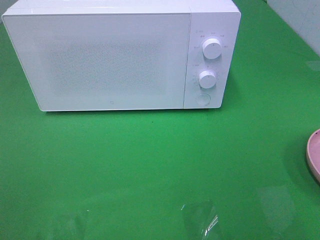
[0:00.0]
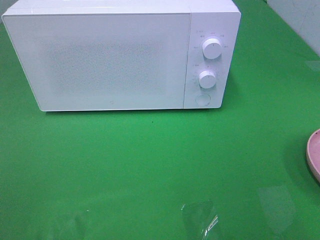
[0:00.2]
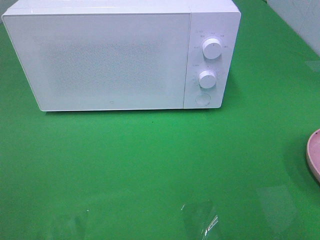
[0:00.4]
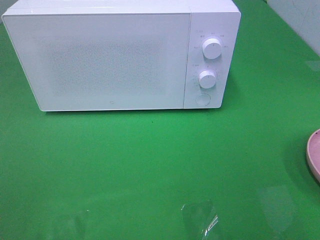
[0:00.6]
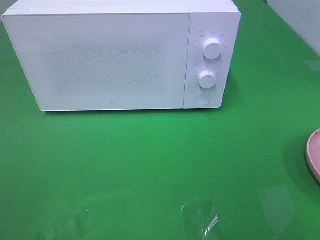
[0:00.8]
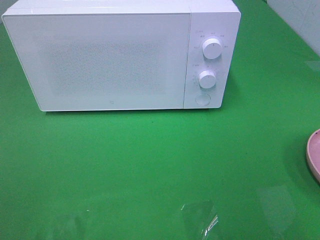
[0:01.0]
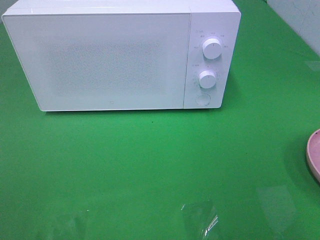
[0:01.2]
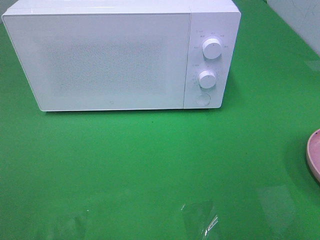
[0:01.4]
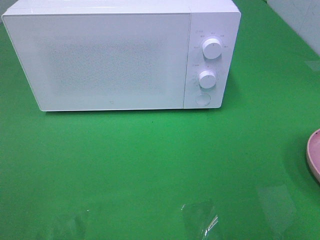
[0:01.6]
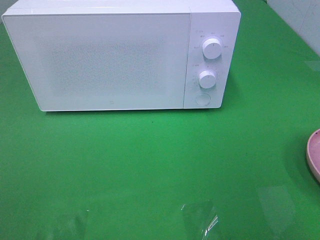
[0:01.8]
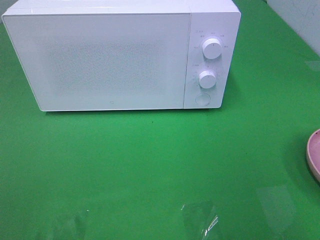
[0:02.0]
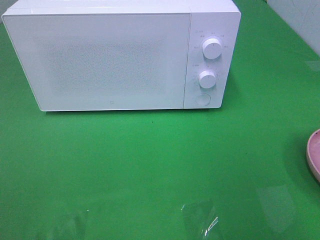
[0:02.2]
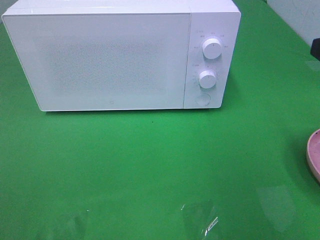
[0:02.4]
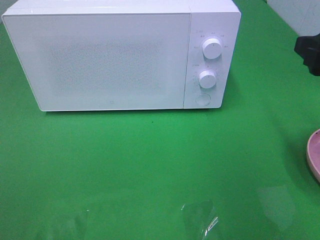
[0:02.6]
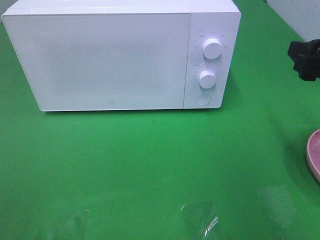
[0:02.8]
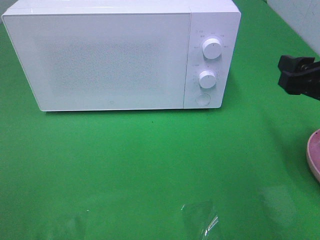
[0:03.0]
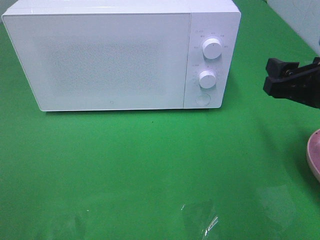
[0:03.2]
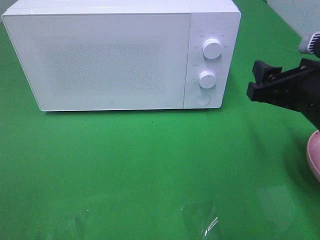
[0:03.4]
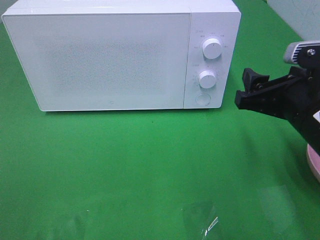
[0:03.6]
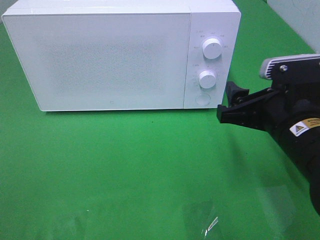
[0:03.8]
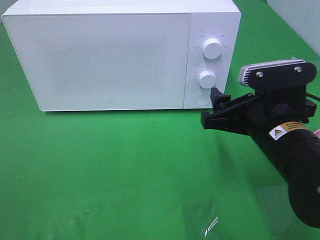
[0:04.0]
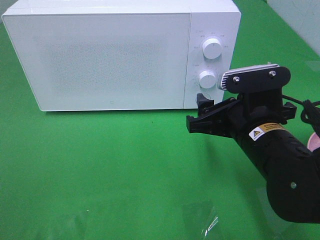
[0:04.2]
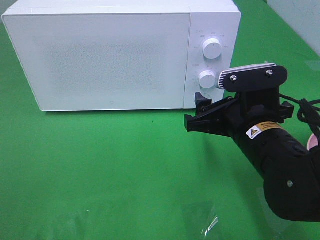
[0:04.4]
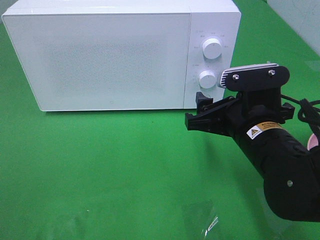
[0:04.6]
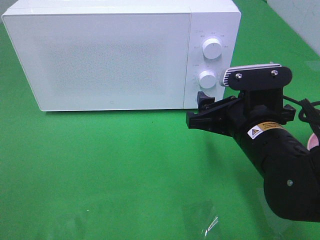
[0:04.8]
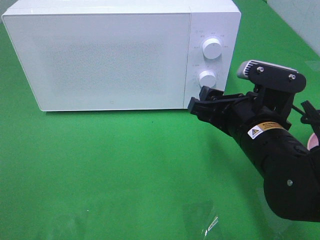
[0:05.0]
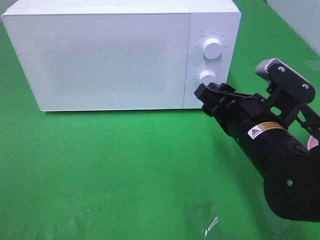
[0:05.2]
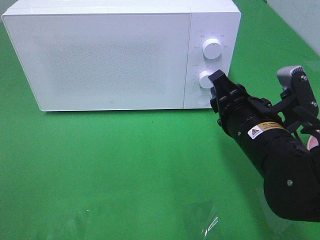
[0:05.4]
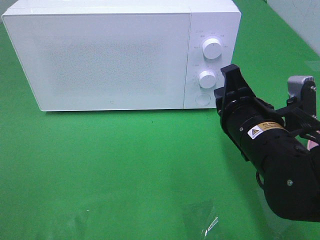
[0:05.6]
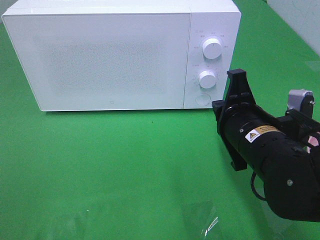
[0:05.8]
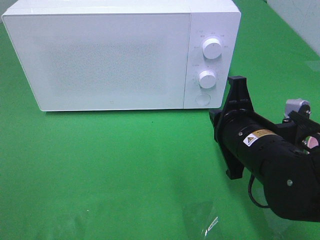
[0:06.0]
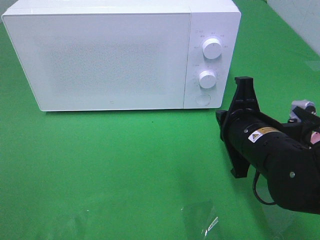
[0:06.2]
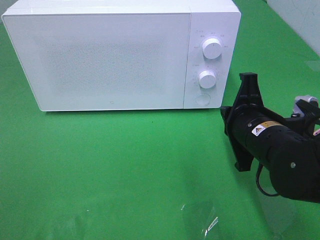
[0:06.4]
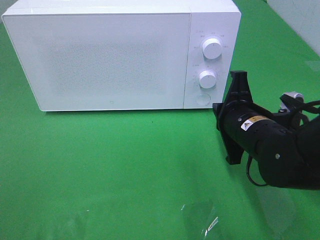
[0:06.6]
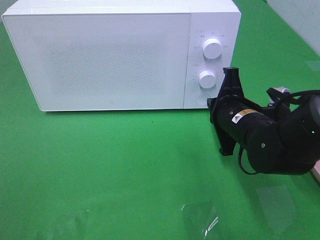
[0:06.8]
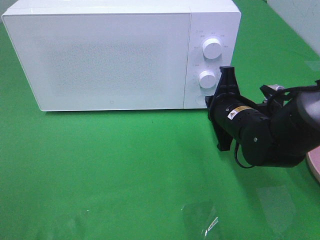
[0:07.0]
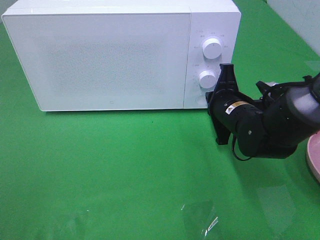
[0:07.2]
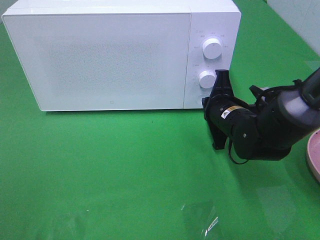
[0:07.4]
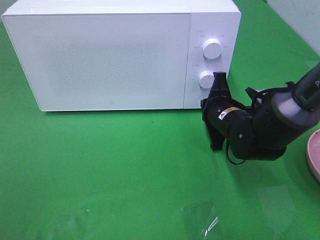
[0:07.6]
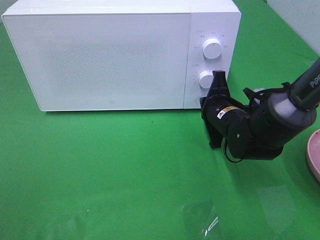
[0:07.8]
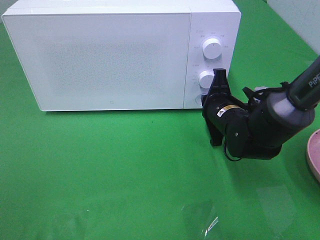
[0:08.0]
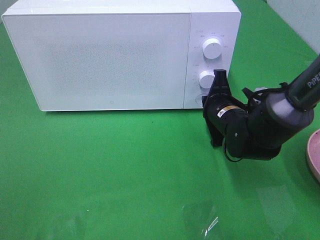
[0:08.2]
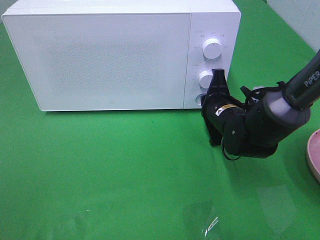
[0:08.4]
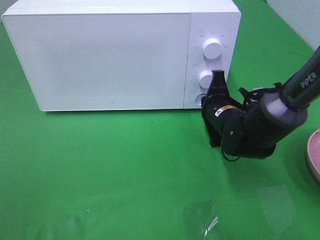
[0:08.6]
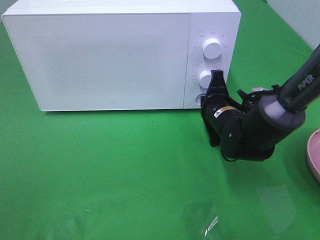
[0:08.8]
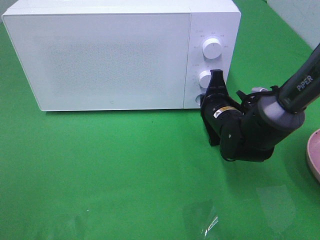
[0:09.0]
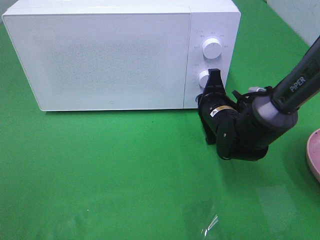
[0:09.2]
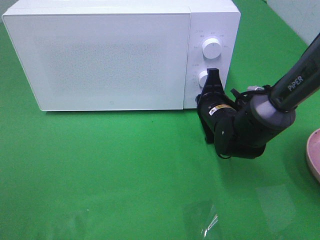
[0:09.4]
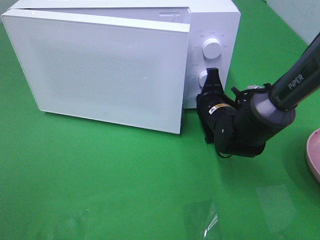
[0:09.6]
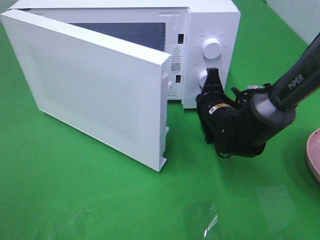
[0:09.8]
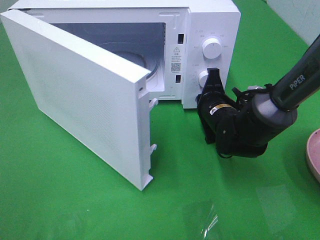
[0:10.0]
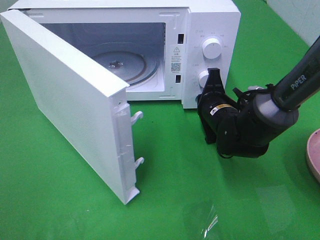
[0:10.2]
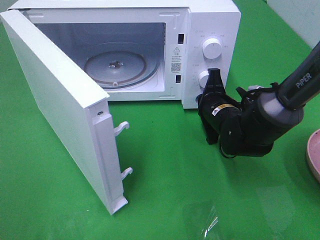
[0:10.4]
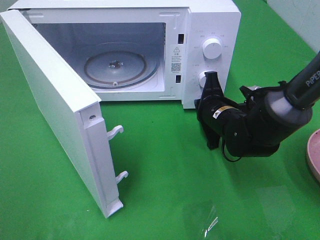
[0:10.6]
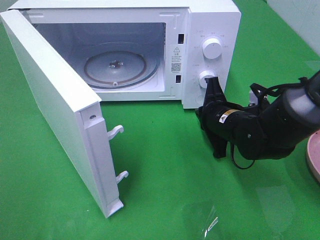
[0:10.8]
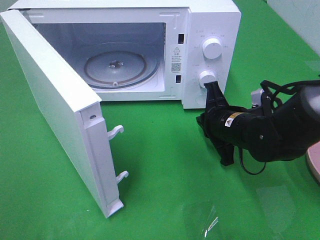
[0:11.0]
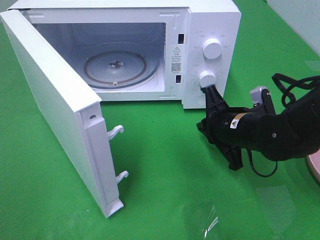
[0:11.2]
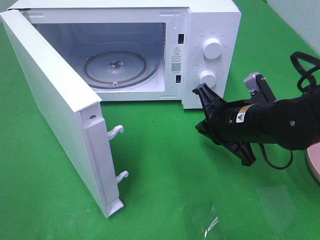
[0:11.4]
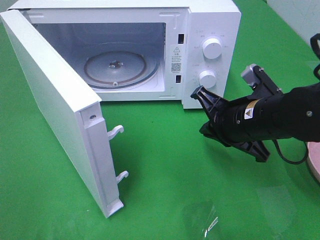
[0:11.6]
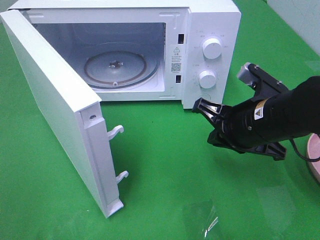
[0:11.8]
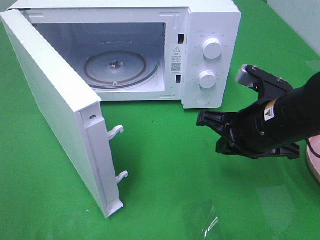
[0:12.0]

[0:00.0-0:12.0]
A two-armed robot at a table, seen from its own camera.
Task of the whole recording: Heat the burger.
Step, 0:00.0 to 0:10.8: Right hand: press the switch.
0:01.6 to 0:03.0: The right gripper goes some 15 cm forward and downward.
0:03.0 to 0:04.4: The right gripper shifts about 15 cm to the left and downward.
0:04.4 to 0:06.0: The right gripper closes its fingers.
0:06.0 to 0:07.6: The right gripper moves forward and downward, approximately 15 cm.
0:07.6 to 0:09.0: The grippers stay close to where they were, moving slightly.
0:10.4 to 0:12.0: The right gripper travels backward and upward by roughly 15 cm.

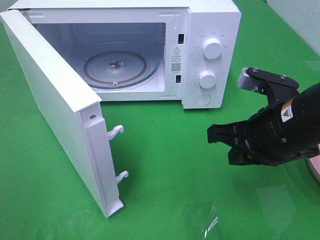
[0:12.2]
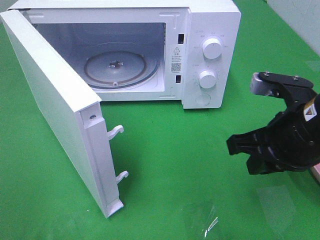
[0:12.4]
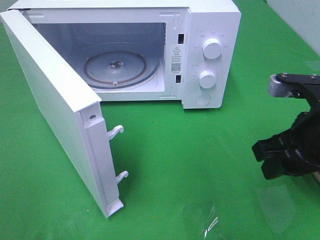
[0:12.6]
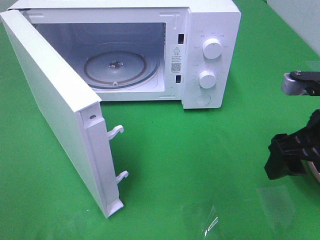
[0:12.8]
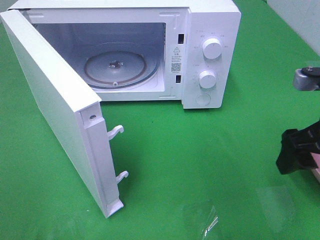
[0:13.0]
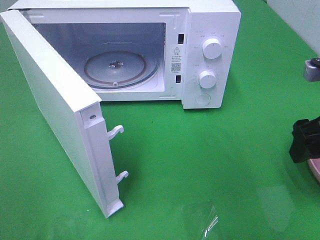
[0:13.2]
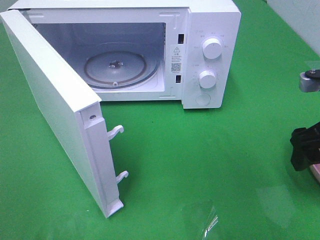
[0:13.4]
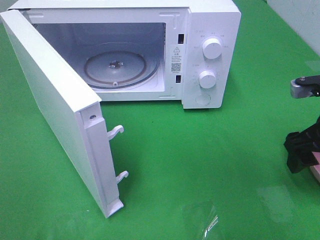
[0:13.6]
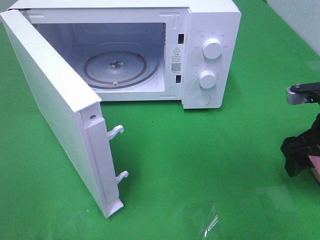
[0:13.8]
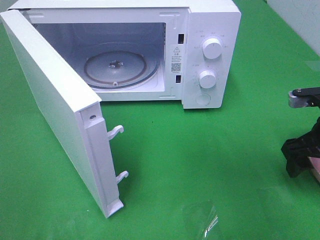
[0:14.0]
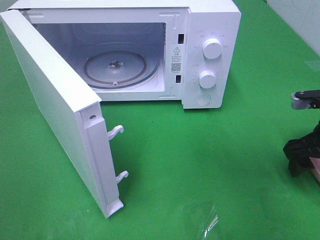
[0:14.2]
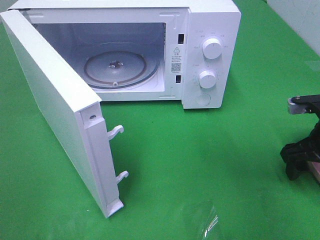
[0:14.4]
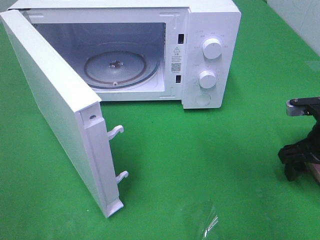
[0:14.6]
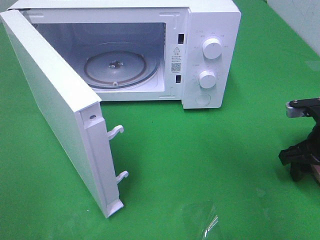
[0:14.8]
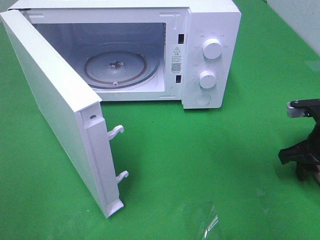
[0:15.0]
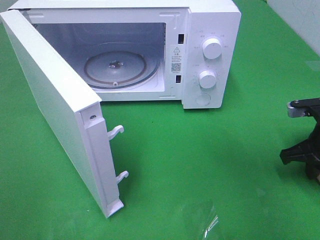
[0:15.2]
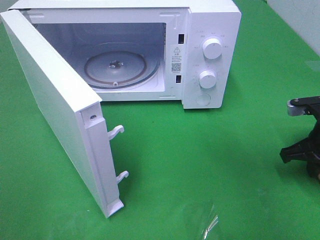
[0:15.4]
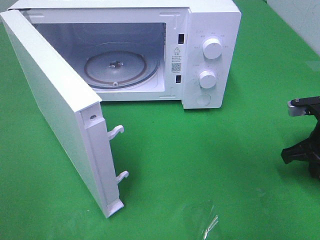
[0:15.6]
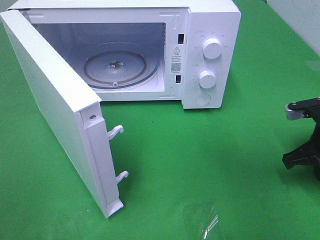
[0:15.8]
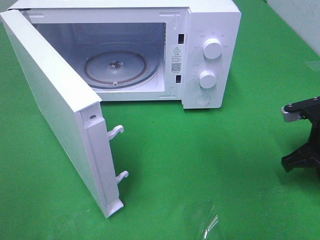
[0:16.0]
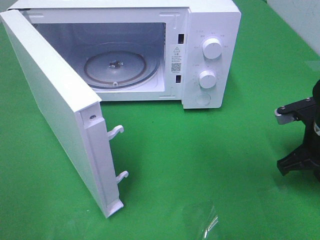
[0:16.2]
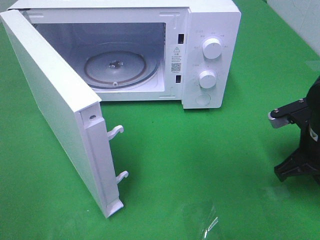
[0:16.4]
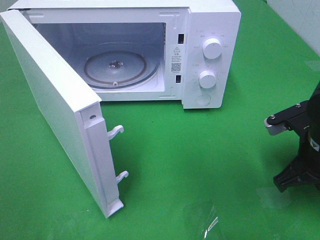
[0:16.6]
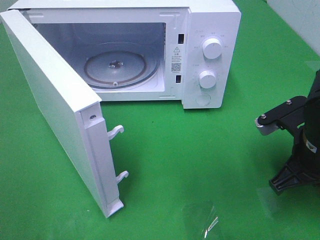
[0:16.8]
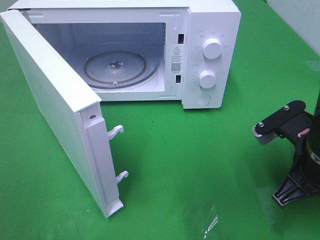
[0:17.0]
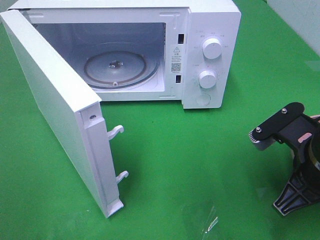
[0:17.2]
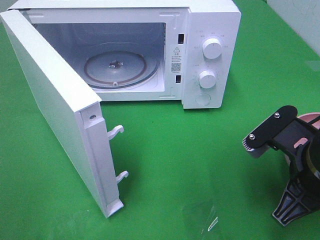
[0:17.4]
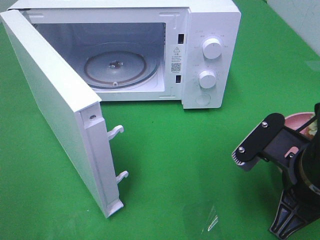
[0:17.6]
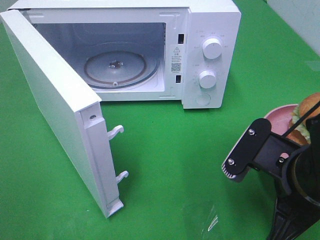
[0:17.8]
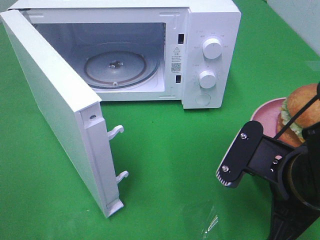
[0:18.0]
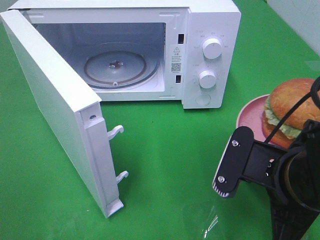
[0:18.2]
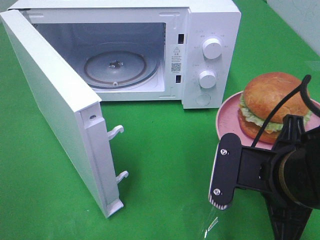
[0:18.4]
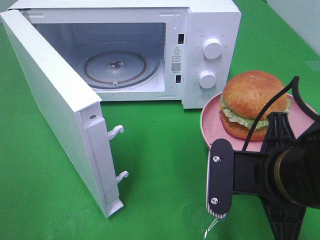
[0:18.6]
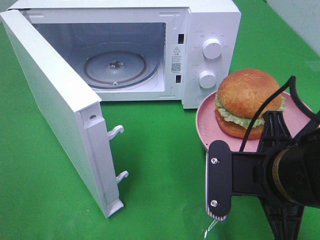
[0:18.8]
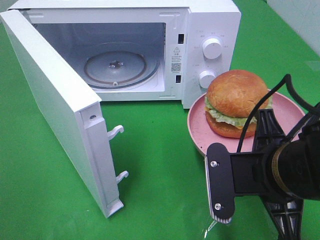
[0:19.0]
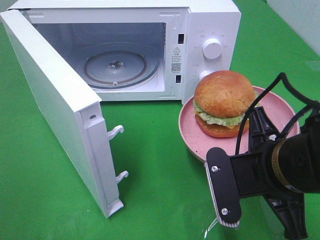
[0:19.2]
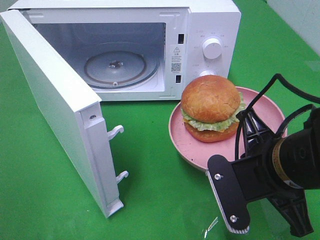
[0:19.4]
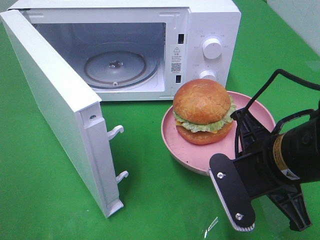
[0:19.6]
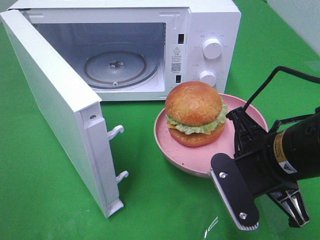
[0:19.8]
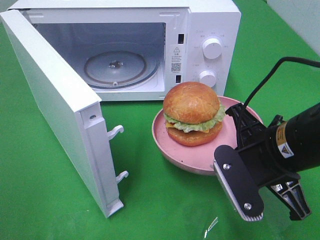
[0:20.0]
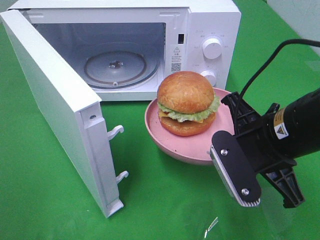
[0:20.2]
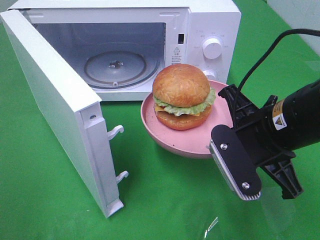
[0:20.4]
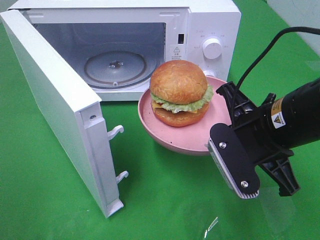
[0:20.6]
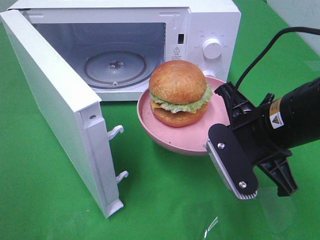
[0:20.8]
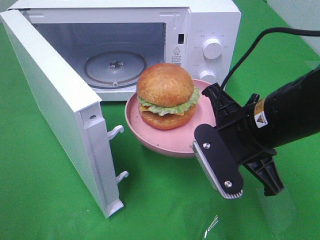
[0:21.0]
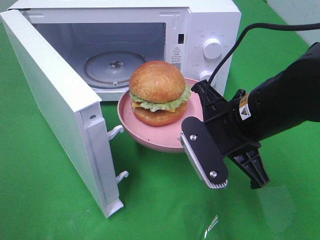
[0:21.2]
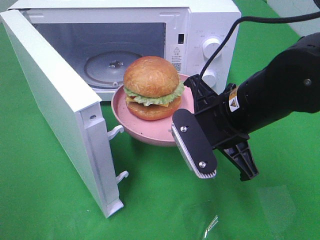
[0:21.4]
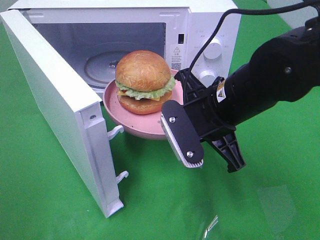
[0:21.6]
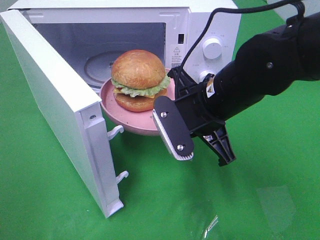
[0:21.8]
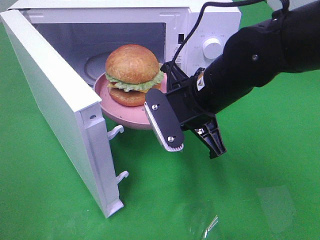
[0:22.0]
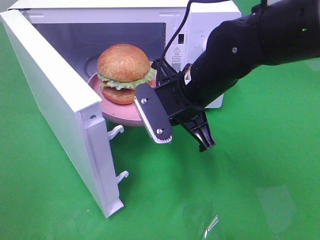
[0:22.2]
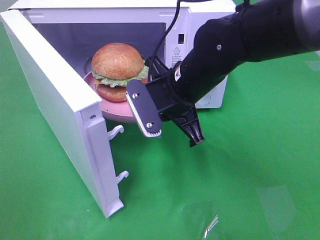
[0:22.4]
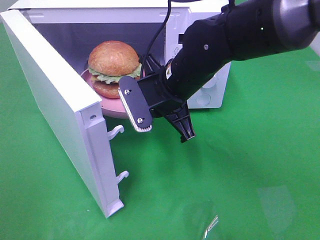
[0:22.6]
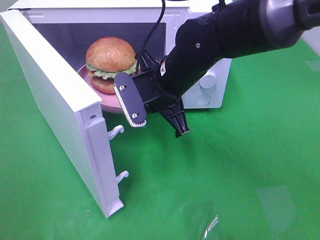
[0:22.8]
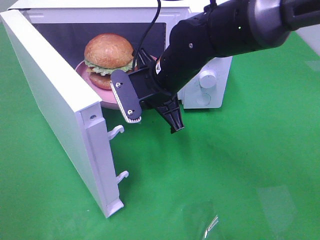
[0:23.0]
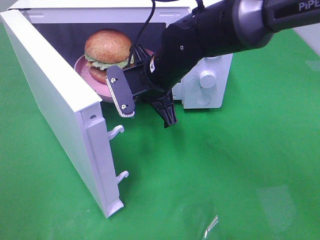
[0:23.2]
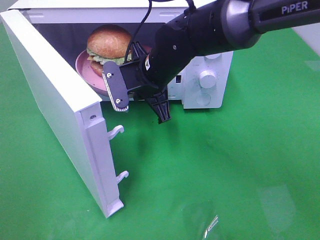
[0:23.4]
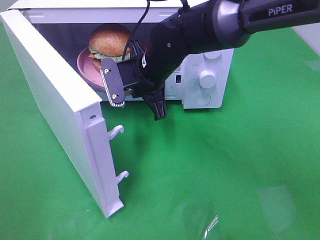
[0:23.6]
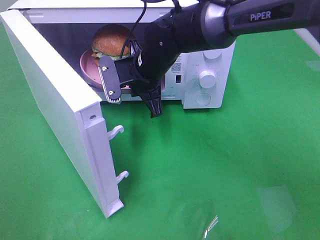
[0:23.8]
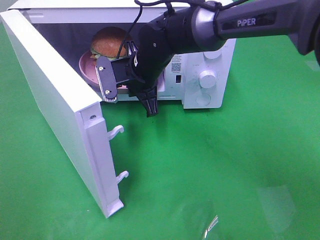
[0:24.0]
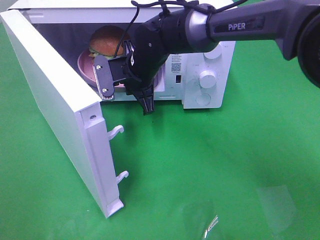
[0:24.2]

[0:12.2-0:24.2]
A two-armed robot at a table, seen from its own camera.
Task of the whole recording: Heat the burger.
Step, 0:12.2 to 0:16.2: Right hand: grab the plate with the hamburger.
0:12.2 to 0:13.8: The right gripper travels to the right by approximately 10 cm, and opens up.
0:13.8 to 0:15.2: The right gripper travels downward by approximately 5 cm, and closes up.
0:15.2 to 0:16.6: The right gripper is displaced to the left by about 5 cm.
0:16.6 to 0:18.2: The right gripper shifts approximately 10 cm backward and to the left.
0:19.8 to 0:21.2: The right gripper changes place by approximately 5 cm.
0:21.2 to 0:22.6: The right gripper travels forward and to the left by approximately 10 cm.
0:22.6 to 0:24.2: The right gripper goes some 10 cm forward and to the left.
